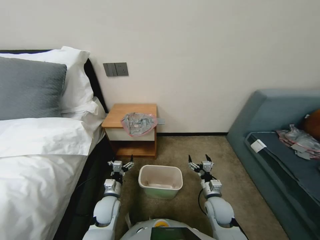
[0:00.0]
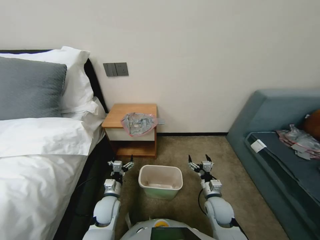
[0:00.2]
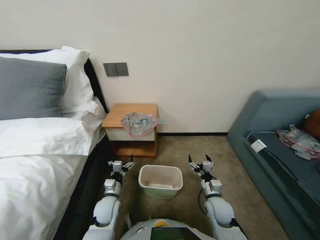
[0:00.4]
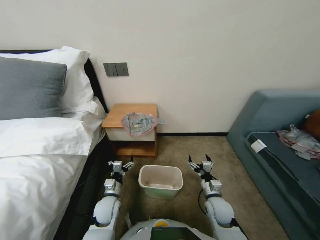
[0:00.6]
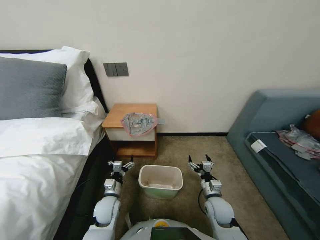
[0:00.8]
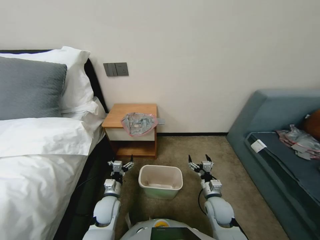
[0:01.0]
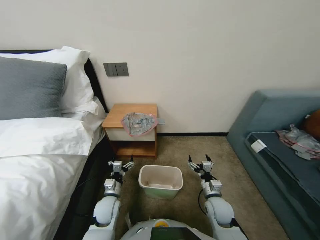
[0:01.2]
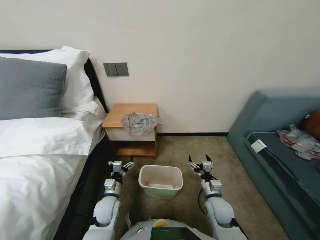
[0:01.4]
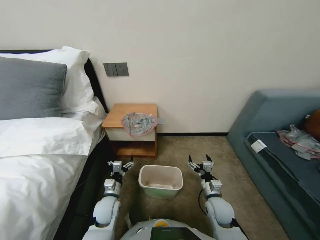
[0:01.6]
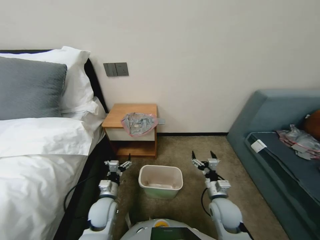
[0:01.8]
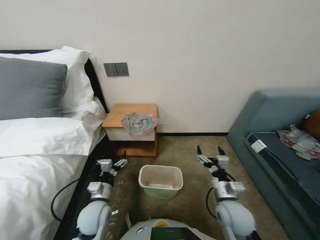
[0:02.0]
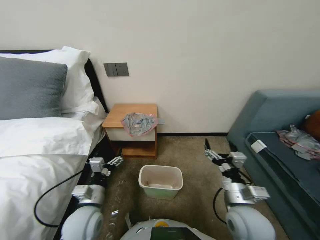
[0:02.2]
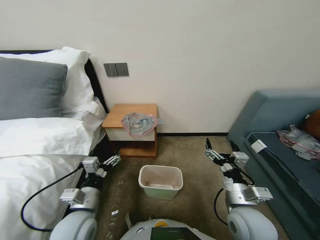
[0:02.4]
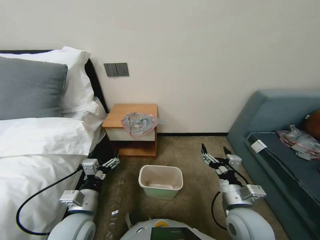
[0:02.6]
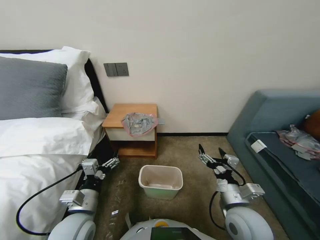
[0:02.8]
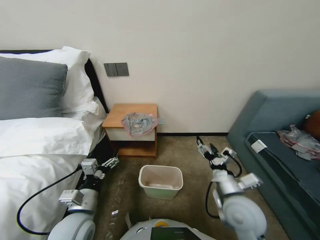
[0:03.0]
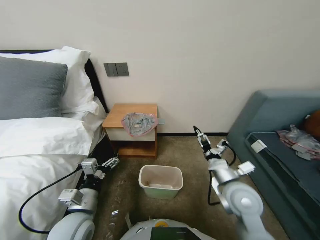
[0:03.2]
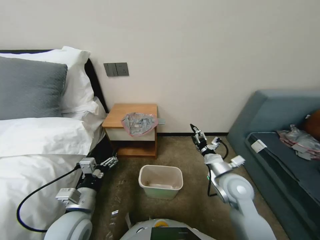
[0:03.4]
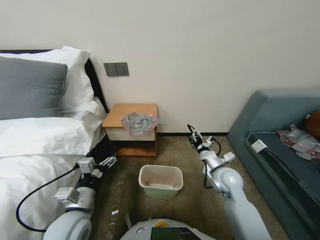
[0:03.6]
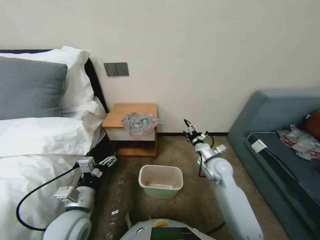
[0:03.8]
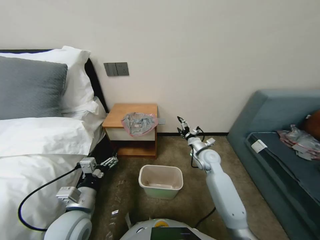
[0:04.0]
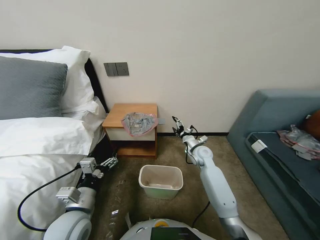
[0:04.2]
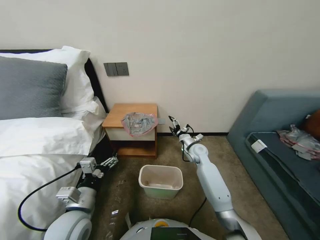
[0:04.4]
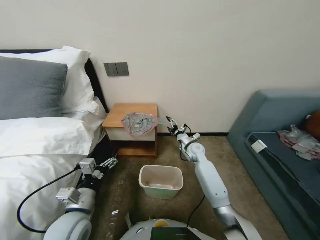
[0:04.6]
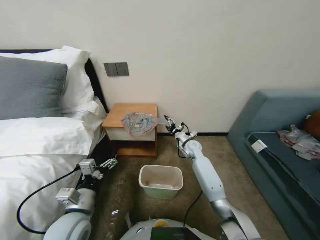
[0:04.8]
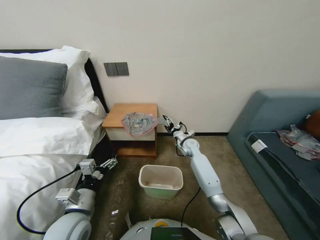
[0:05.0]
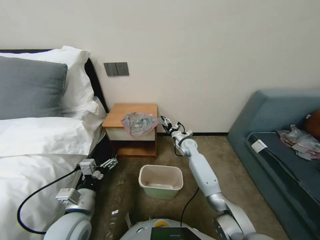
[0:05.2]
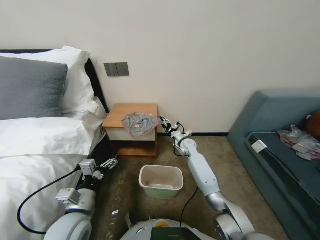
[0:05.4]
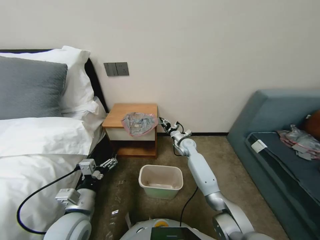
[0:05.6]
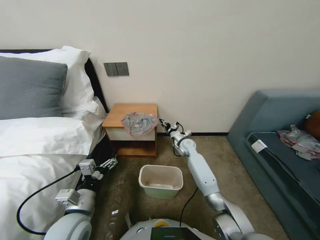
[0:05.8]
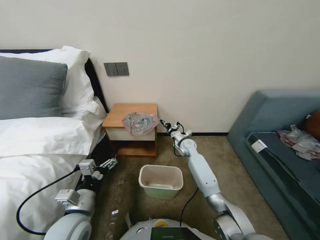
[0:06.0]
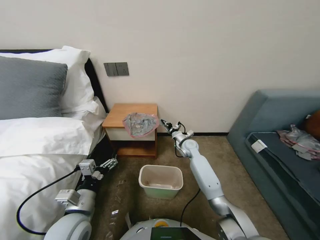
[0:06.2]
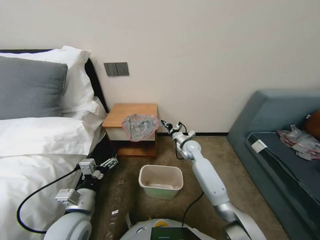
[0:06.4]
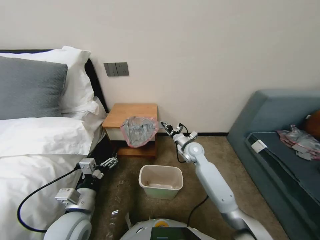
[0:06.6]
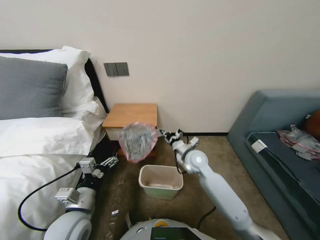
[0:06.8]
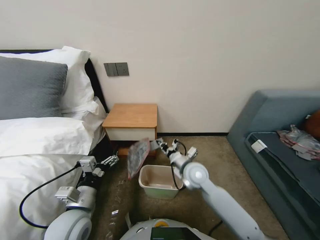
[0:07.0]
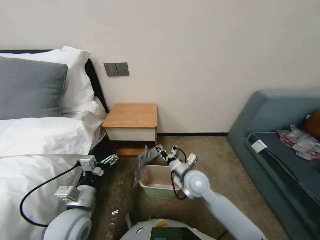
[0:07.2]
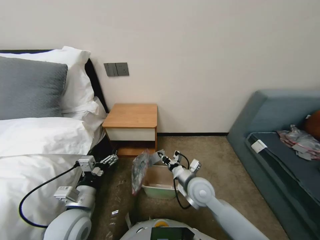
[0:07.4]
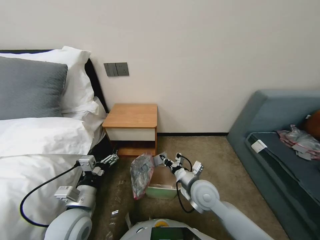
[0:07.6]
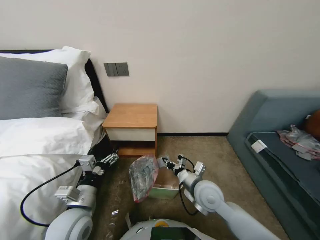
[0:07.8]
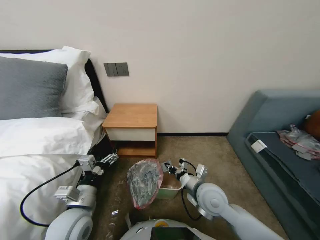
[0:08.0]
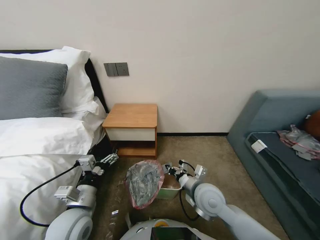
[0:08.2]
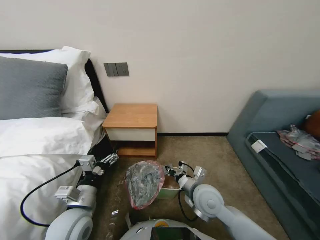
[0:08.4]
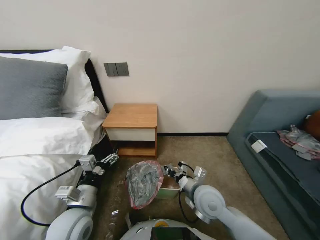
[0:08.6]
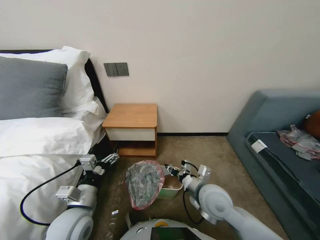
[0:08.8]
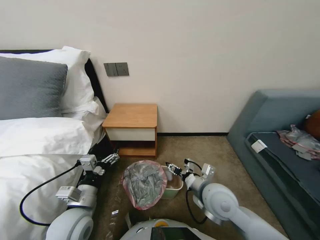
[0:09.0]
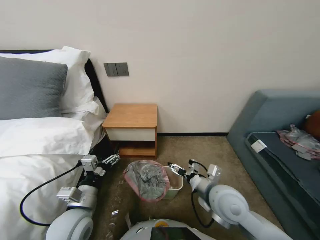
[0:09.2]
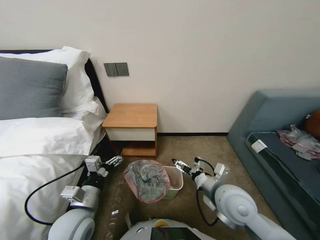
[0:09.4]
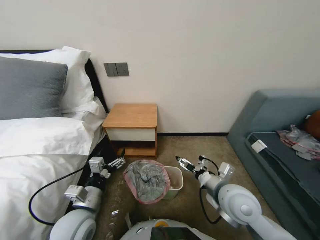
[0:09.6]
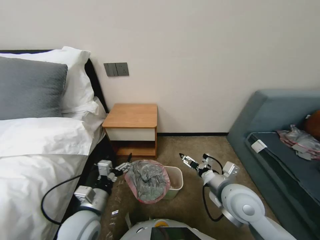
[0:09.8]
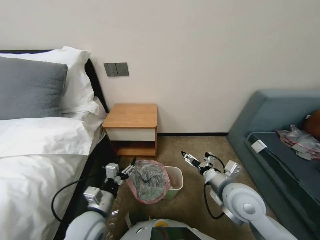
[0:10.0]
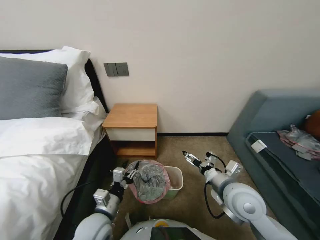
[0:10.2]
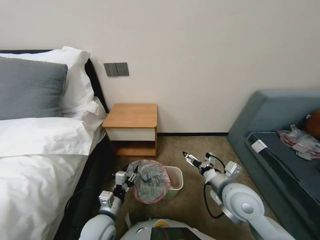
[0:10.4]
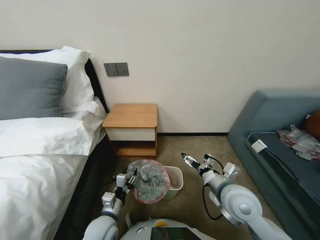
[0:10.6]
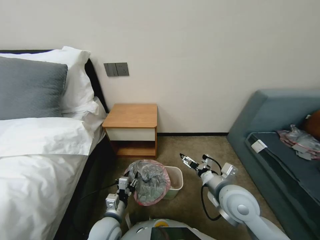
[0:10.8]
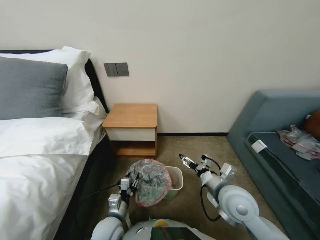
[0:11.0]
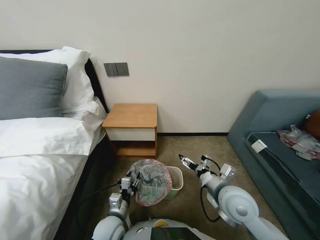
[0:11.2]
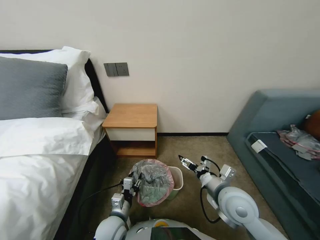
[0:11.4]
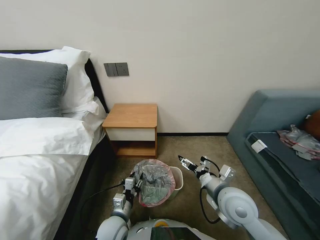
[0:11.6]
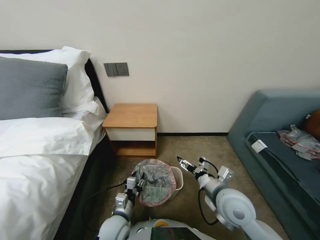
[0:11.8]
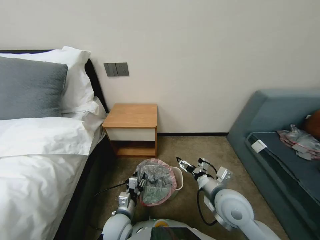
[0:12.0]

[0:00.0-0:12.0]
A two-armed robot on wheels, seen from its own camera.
Task of the whole recording: Pick up the garbage bag from the table and place it over the trash can.
0:01.6 to 0:03.0: Both grippers travel together upward and backward, some 15 cm.
0:03.0 to 0:04.4: The right gripper travels forward by roughly 30 cm.
0:04.4 to 0:06.0: The right gripper is displaced forward by about 5 cm, and closes up.
0:06.0 to 0:07.6: The right gripper moves backward, roughly 25 cm.
0:07.6 to 0:09.0: The right gripper shifts by about 5 cm, and opens.
0:09.0 to 0:10.4: The right gripper moves to the right, approximately 5 cm, and opens up; the left gripper moves downward, about 5 cm, and closes its fingers.
0:10.4 to 0:12.0: The left gripper heads downward, covering approximately 5 cm.

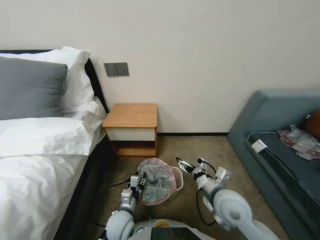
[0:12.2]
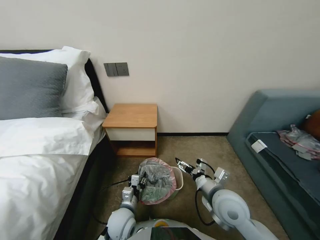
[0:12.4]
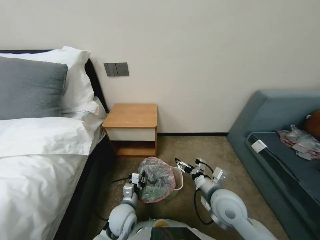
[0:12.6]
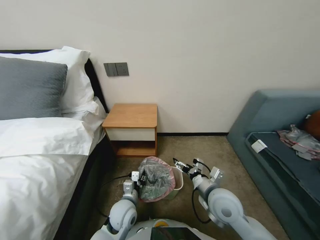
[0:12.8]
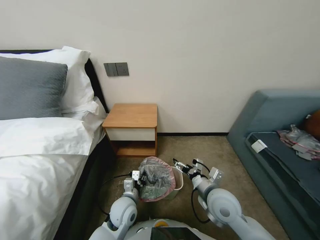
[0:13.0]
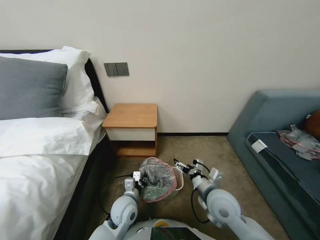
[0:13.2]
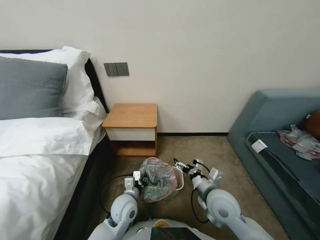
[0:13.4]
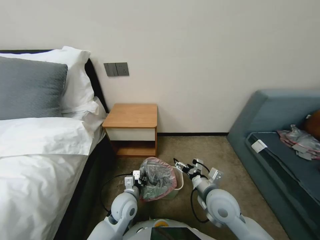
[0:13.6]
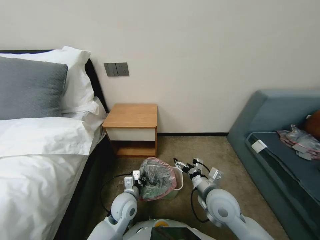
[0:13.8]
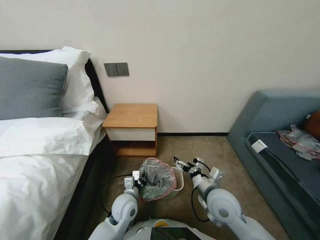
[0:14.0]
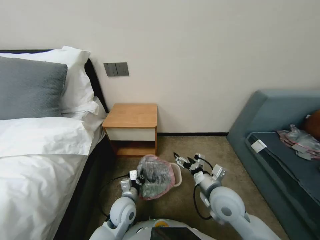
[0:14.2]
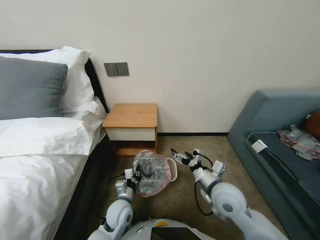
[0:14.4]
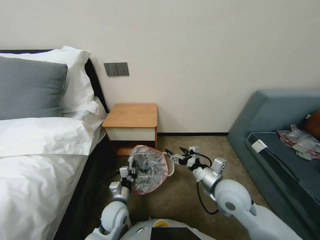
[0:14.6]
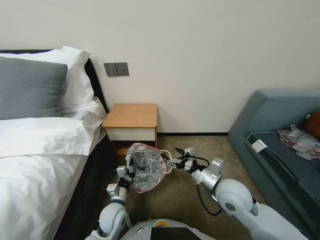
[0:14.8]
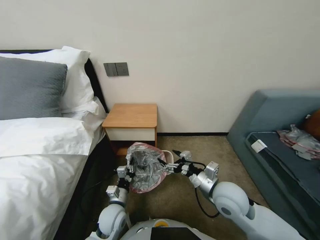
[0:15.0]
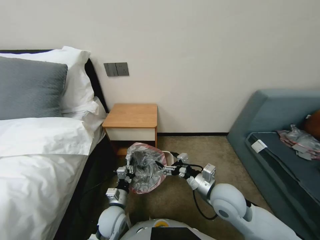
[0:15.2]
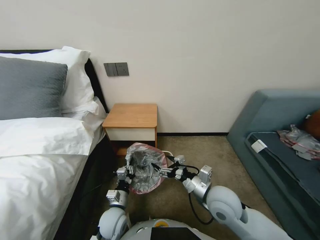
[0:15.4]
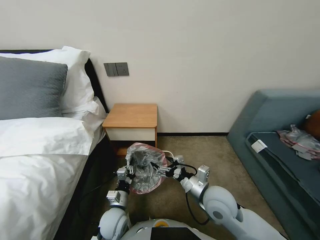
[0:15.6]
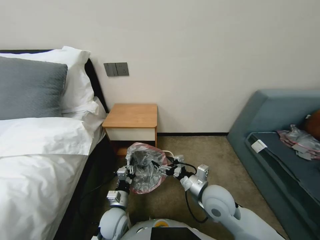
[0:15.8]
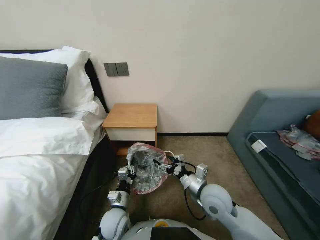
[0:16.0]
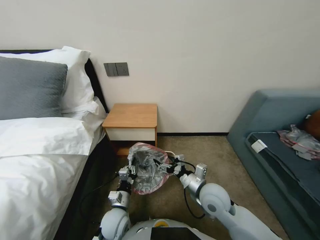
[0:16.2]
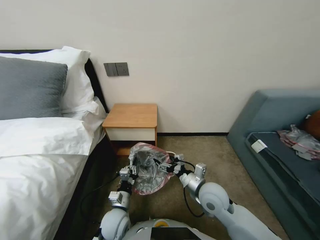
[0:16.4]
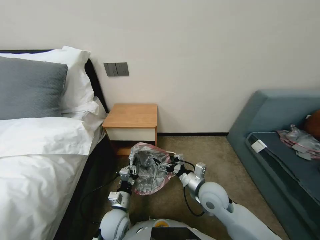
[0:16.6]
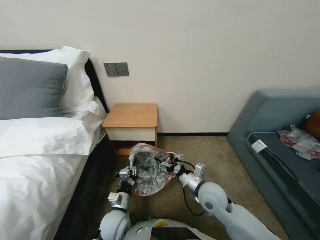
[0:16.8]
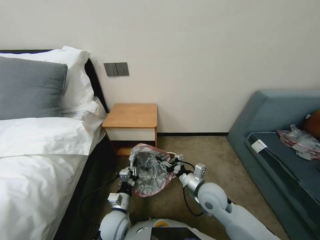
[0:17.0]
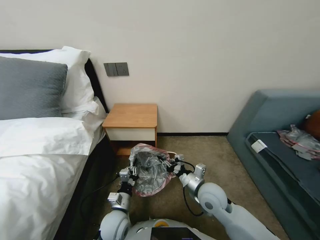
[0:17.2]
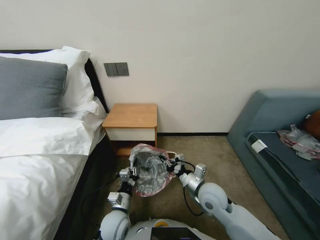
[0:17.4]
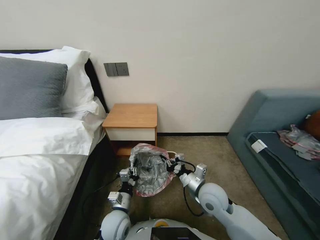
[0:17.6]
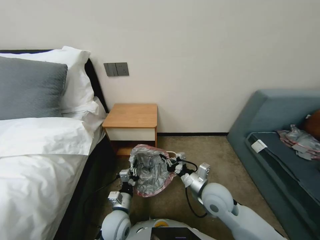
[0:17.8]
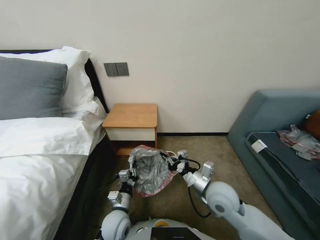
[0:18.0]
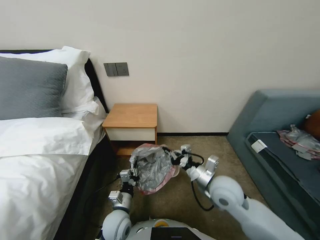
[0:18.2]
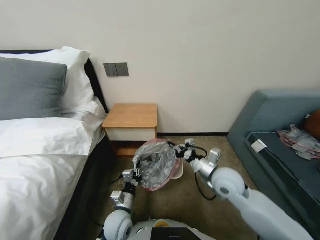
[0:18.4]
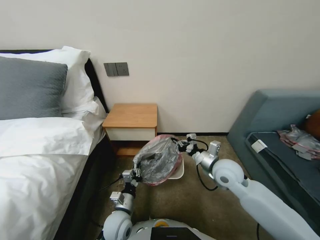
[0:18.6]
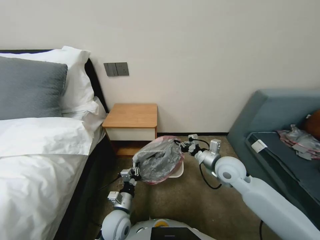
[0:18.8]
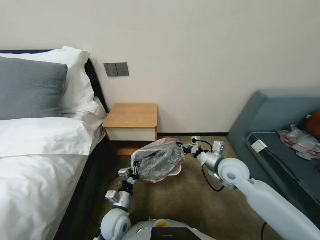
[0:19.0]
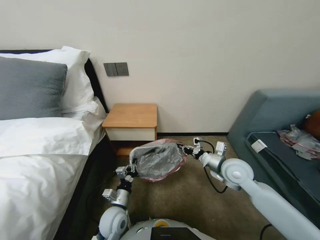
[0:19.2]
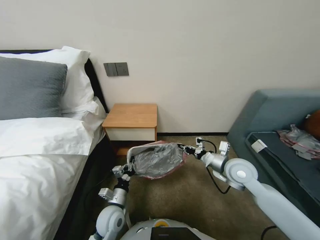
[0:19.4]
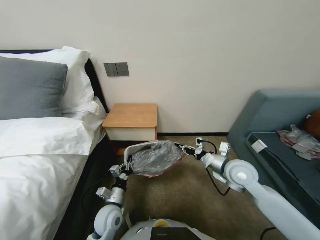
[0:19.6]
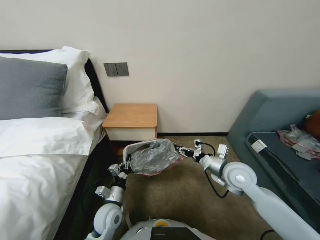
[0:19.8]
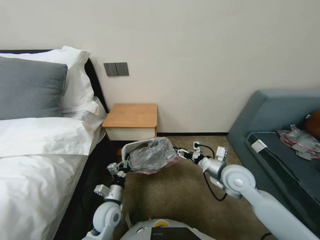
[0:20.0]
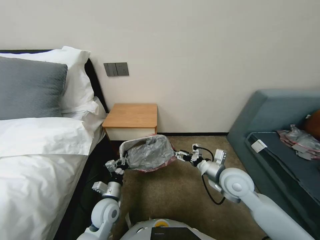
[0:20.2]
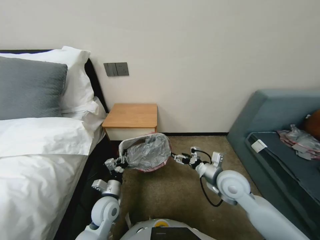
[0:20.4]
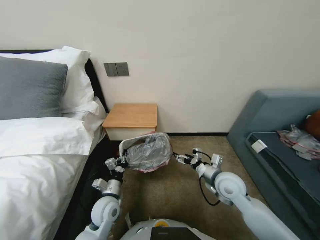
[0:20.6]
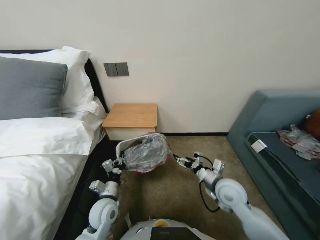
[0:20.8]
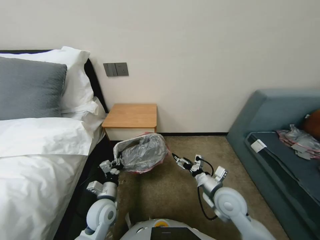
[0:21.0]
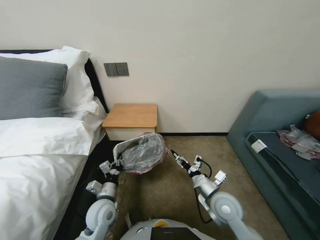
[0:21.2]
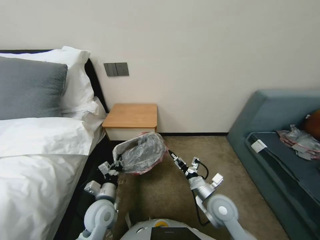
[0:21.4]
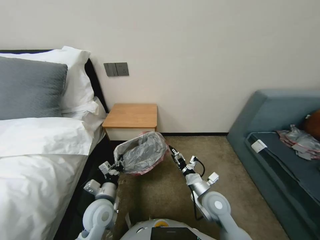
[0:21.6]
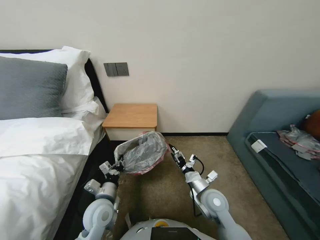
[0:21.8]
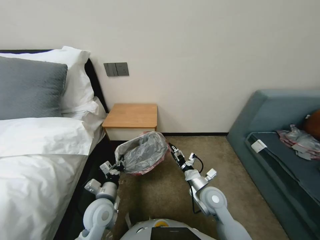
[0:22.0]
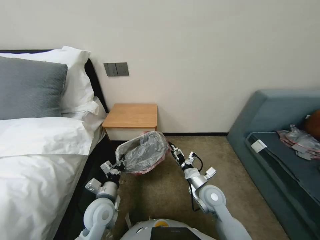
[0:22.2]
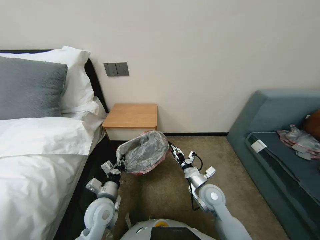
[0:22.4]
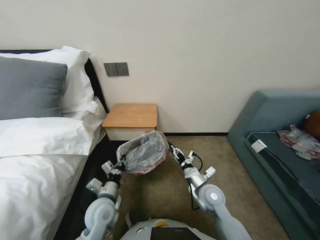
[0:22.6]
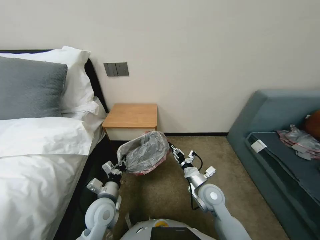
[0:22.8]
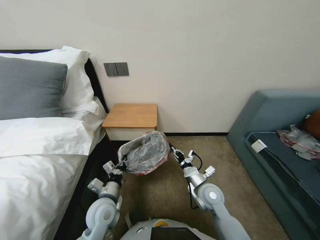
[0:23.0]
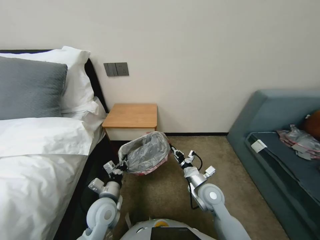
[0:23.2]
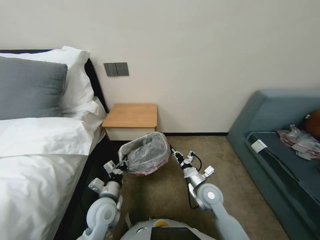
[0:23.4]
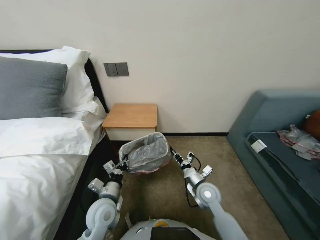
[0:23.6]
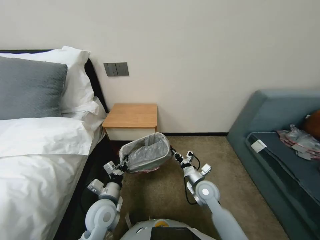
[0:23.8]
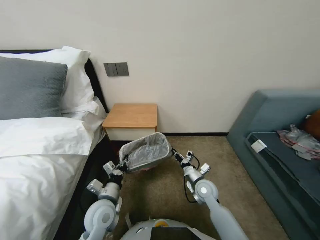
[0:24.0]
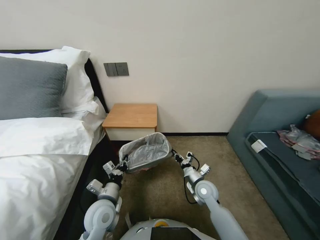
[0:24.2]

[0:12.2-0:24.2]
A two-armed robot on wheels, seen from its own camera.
Task of the whole recording: Pick up the garbage bag from the table and place it over the trash can.
0:12.2 to 0:13.8: The left gripper moves forward, approximately 5 cm.
0:13.8 to 0:15.2: The left gripper ends up about 5 cm from where it was.
0:15.2 to 0:16.6: The right gripper ends up about 5 cm from where it was.
0:16.6 to 0:18.2: The right gripper closes its fingers.
0:18.2 to 0:19.8: The right gripper moves to the right and forward, approximately 10 cm.
0:19.8 to 0:21.2: The right gripper goes roughly 10 cm backward and downward, and opens up.
0:21.2 to 0:22.6: The right gripper ends up some 5 cm from where it was, and closes up.
0:22.6 to 0:24.2: The right gripper moves approximately 5 cm, and closes.
